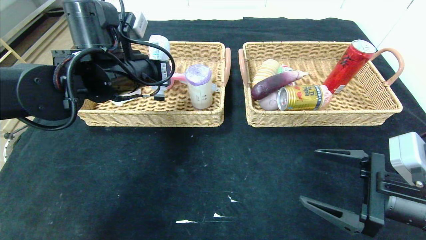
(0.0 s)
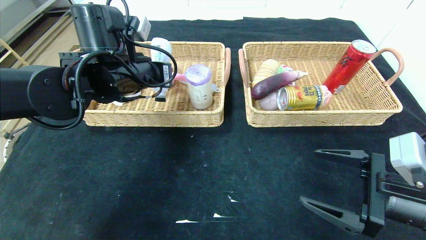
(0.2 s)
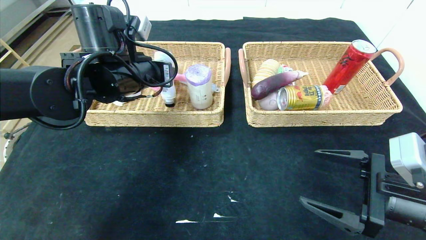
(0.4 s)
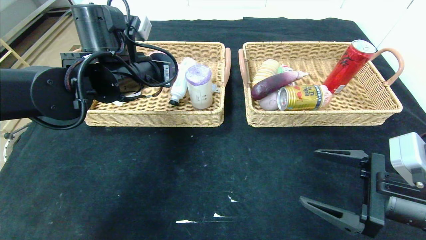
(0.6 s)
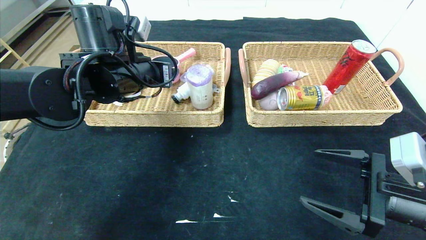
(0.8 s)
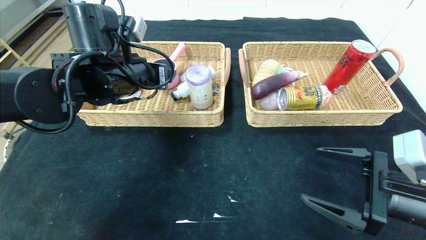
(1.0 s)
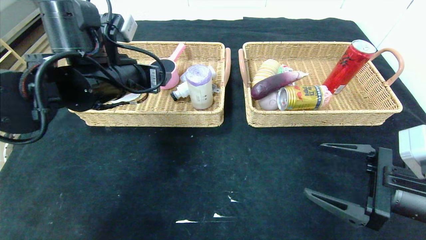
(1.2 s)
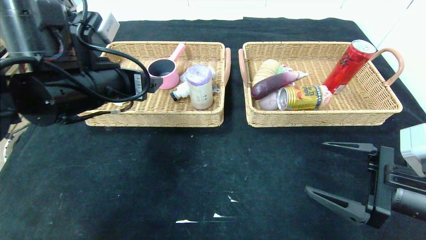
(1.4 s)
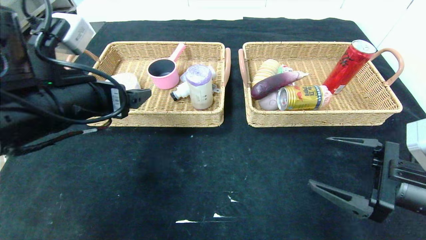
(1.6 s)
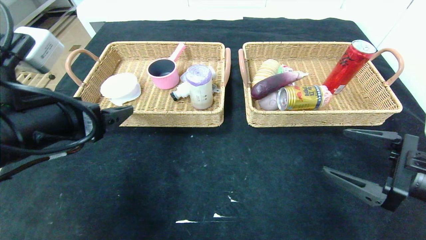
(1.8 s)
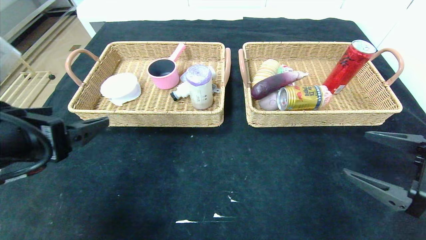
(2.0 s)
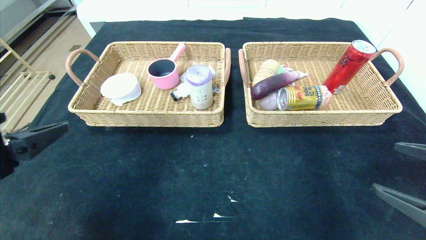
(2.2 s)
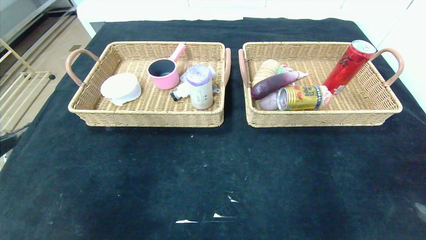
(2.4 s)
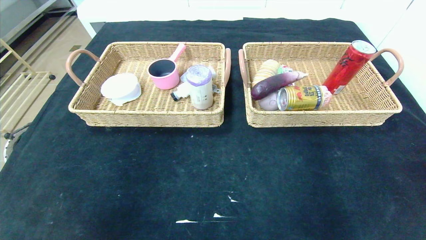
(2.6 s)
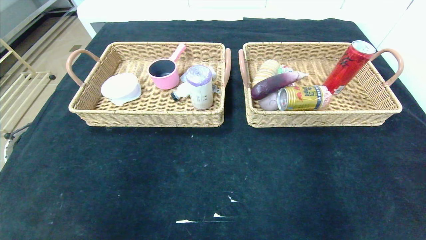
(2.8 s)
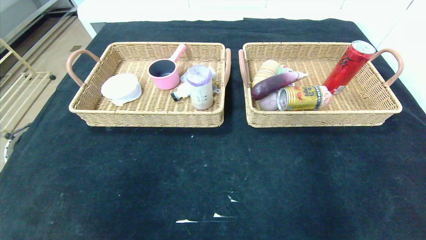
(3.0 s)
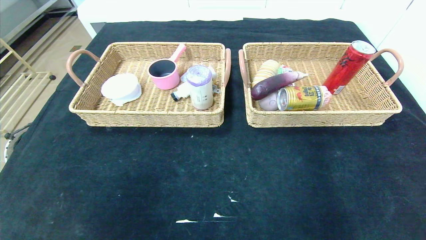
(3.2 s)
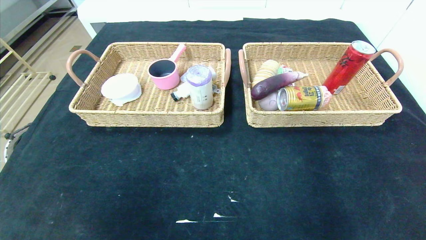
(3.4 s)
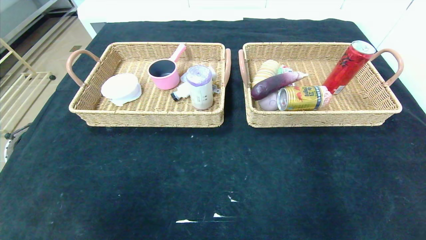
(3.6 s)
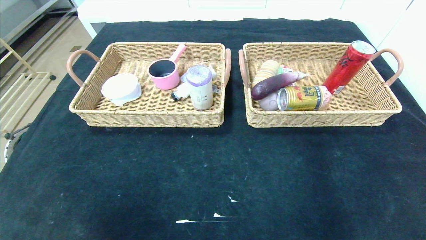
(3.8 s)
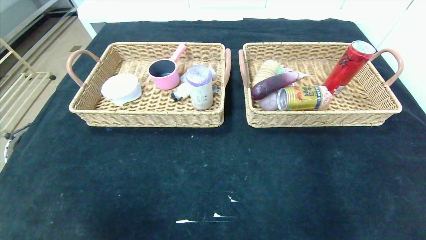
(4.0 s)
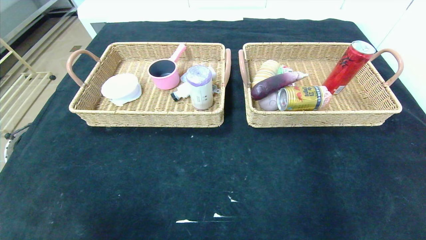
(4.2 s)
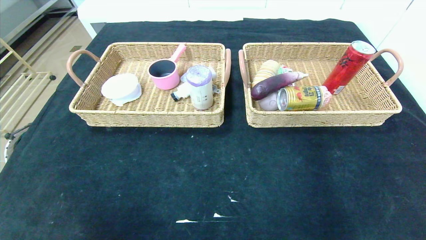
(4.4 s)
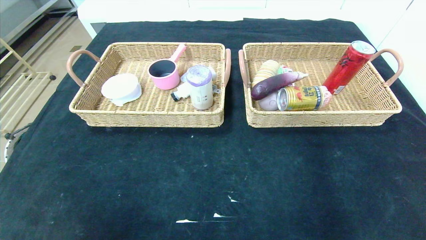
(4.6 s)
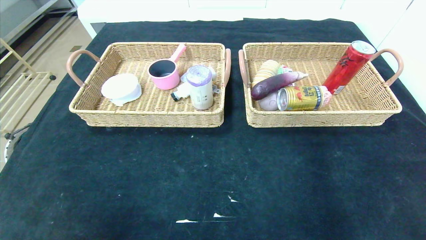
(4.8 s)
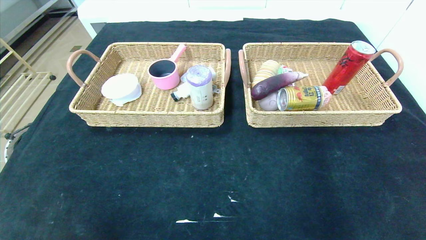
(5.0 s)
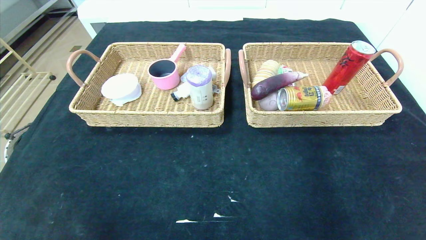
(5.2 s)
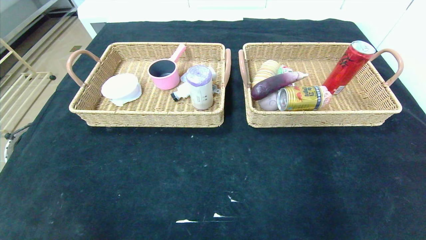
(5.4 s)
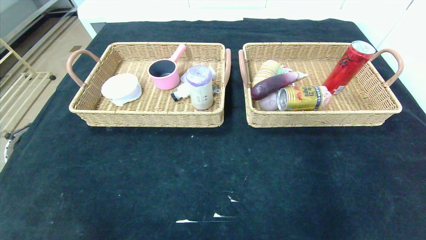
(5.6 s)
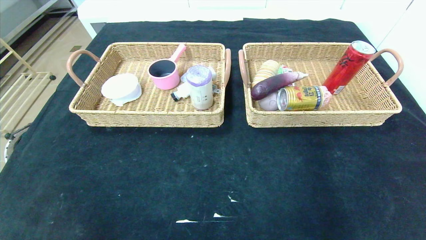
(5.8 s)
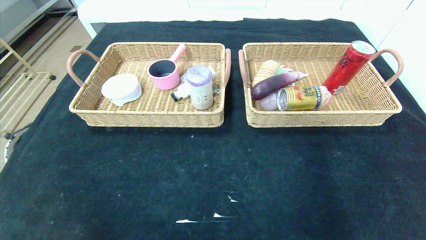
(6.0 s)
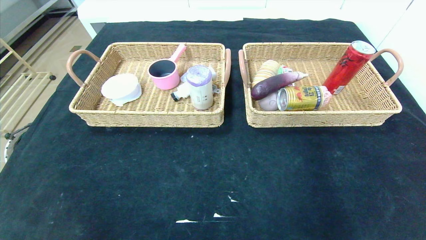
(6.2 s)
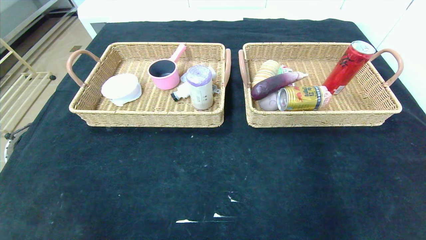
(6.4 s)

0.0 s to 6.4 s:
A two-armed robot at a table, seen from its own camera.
Step, 0.0 to 2.0 s: Pick up the washing liquid and put it in the left basket.
0.0 to 1.6 s: The left gripper goes some 10 cm backward, and opens.
1.6 to 3.2 s: The grippers both shift backward by about 25 cm.
